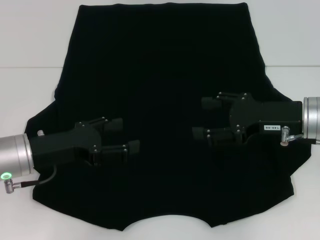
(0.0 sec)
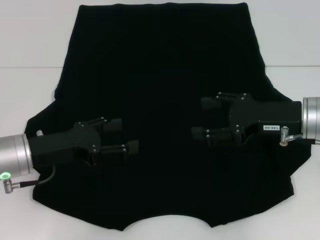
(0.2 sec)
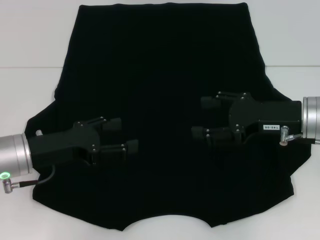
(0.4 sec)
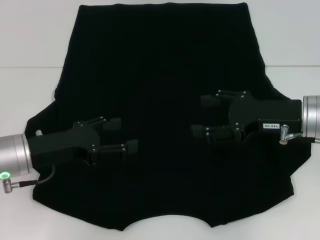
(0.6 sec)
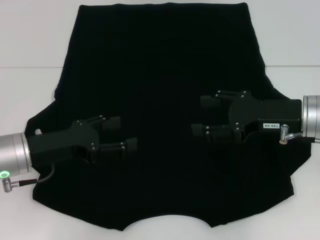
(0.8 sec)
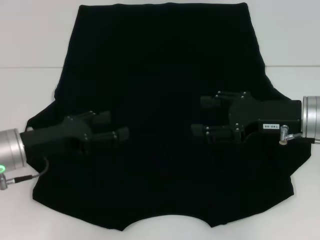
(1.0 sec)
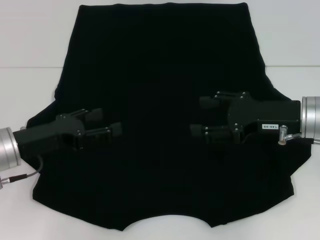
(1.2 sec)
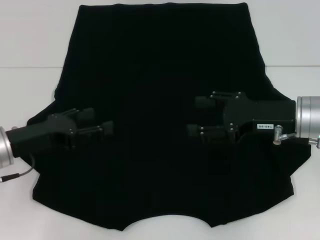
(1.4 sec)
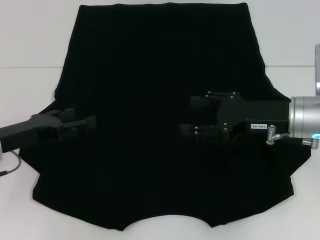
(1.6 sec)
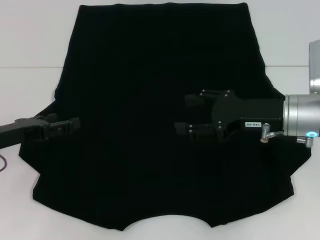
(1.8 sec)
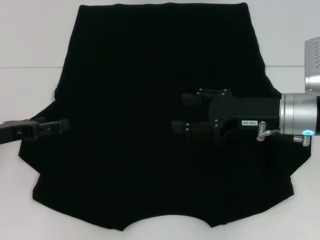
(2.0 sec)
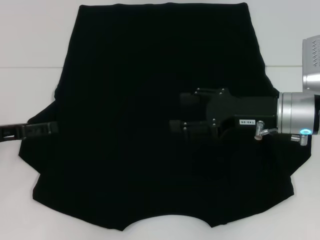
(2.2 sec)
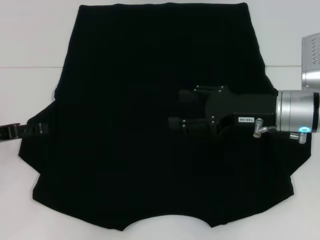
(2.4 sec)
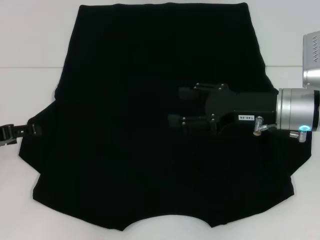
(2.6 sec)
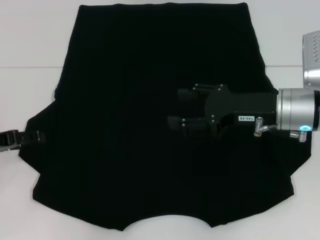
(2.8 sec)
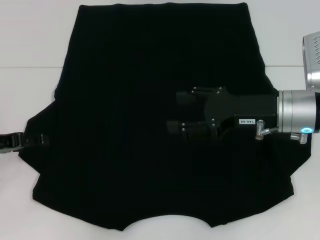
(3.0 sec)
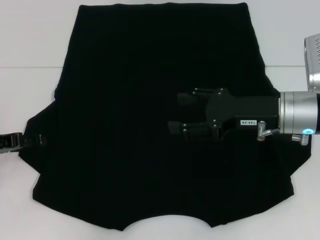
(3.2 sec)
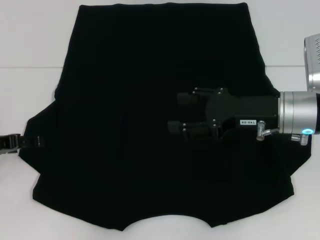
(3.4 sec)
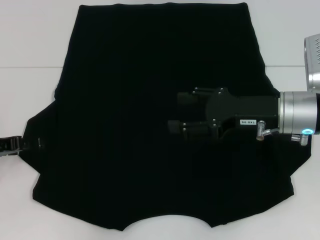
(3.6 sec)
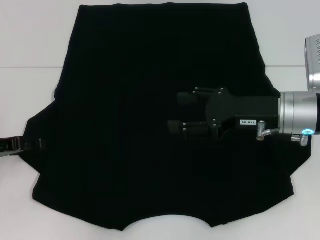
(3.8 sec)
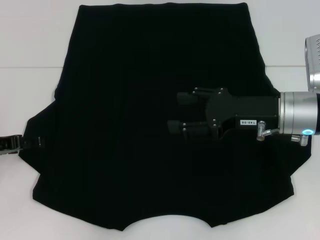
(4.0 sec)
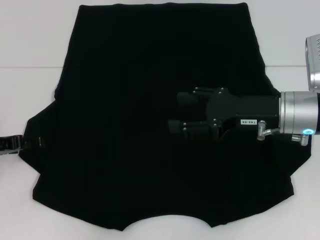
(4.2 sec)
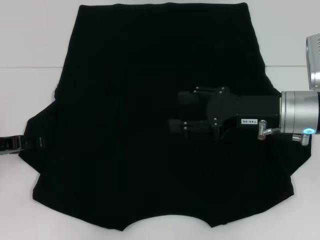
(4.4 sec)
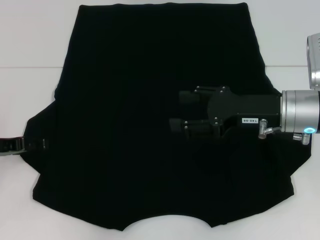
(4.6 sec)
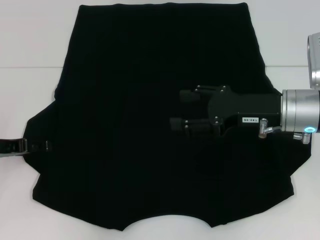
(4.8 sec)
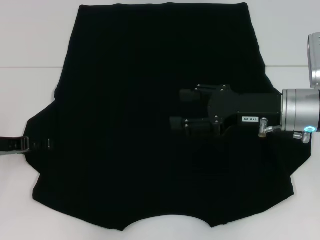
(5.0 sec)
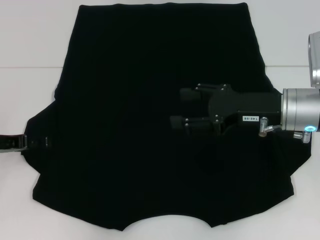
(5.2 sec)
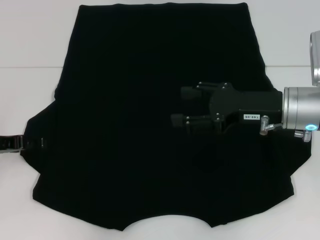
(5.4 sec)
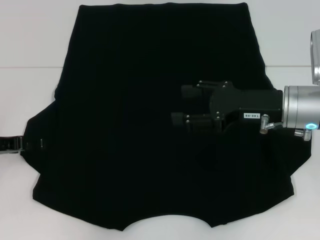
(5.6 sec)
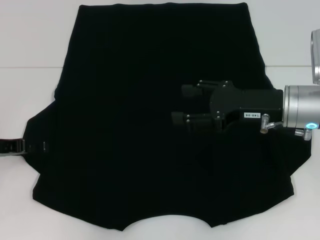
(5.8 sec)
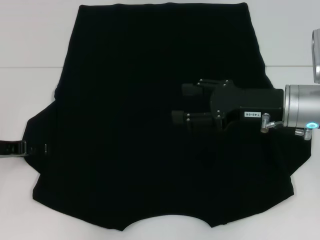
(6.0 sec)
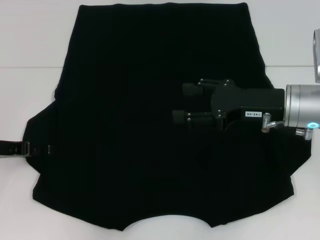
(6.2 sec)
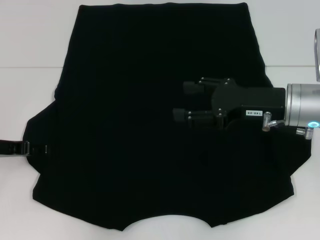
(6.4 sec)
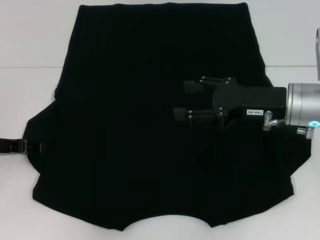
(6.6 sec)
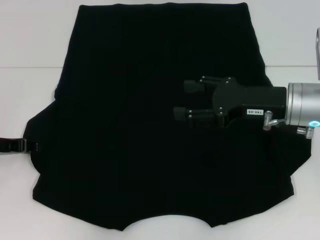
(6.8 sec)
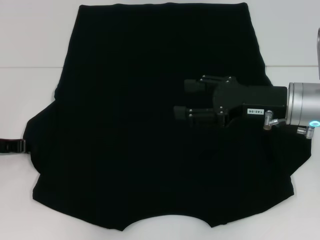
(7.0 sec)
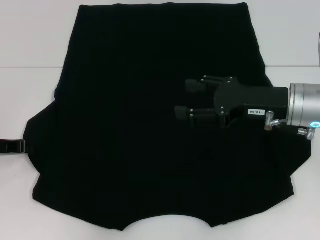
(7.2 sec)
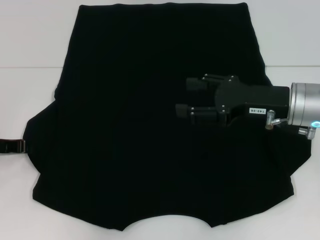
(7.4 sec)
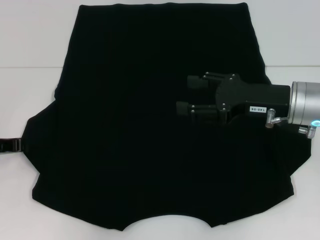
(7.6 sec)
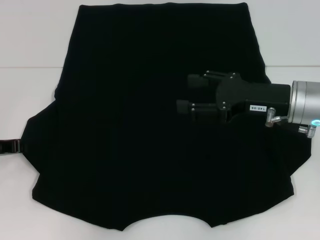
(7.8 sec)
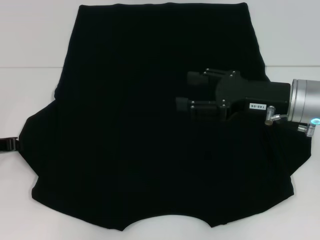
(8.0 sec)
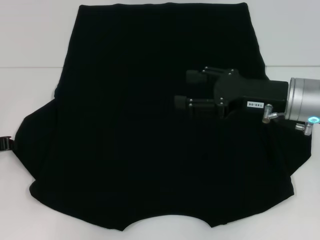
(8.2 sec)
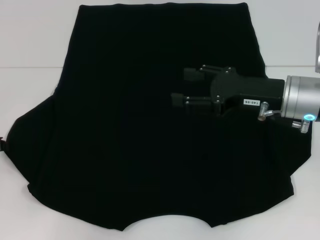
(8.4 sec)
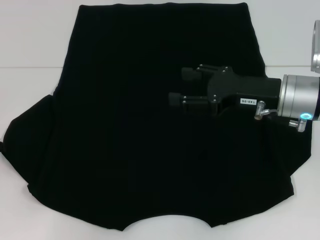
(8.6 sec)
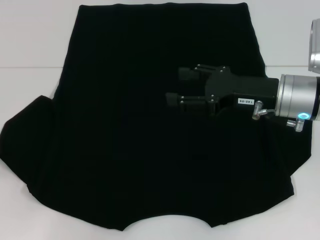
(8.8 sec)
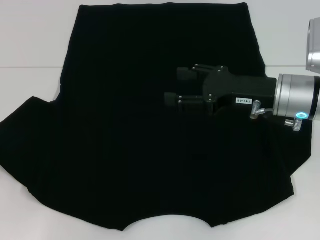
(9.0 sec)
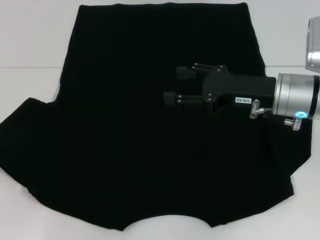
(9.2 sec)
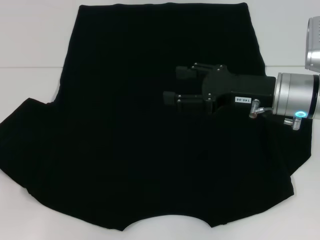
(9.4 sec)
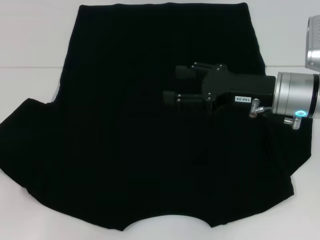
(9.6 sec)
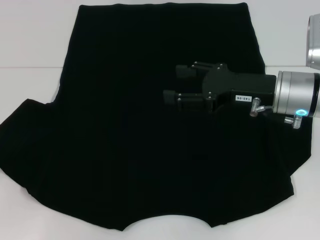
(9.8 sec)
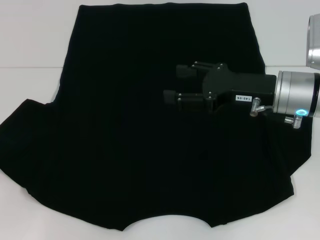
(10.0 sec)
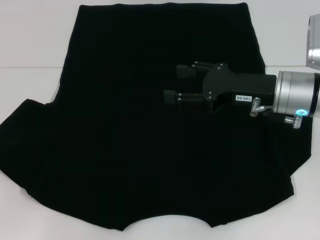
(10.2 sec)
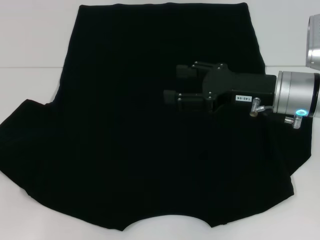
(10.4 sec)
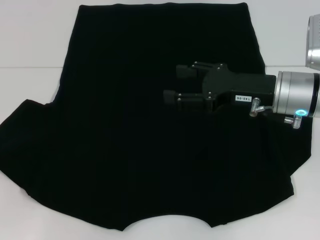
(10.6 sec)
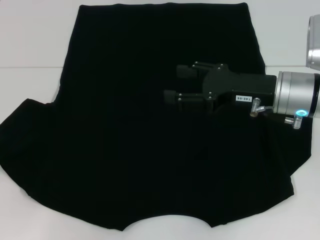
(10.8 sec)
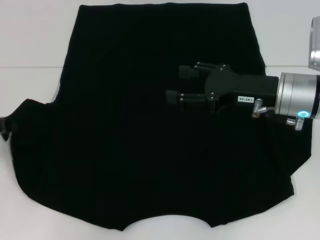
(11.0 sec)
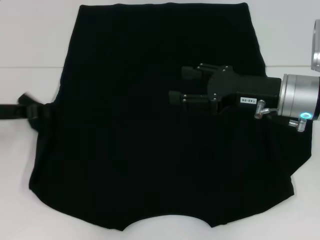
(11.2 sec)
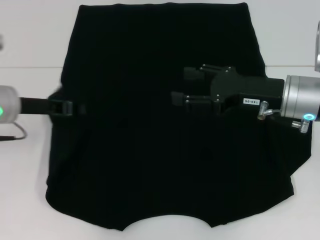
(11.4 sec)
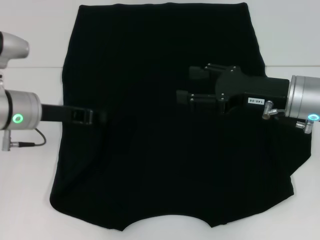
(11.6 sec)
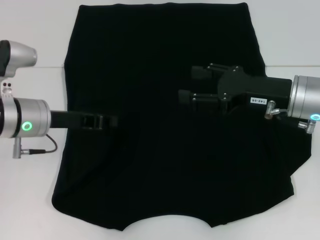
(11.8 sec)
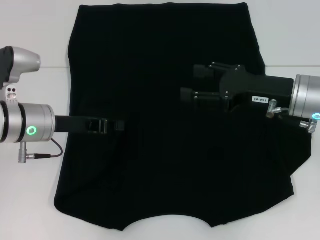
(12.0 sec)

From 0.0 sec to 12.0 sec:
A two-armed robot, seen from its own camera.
From 3.0 sec to 6.0 sec: The grippers make only small movements.
From 6.0 sec to 7.6 sec: The left gripper closes its fingers.
From 7.6 sec to 9.0 sec: The left gripper shifts by some 5 cm.
From 9.0 sec to 10.4 sec: There are only small adjustments of the grippers.
From 10.4 sec to 12.0 sec: The left gripper moves to the right and forward, roughly 20 cm.

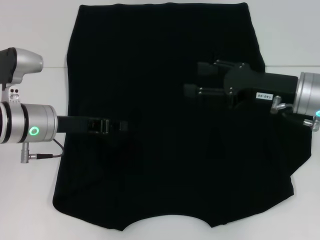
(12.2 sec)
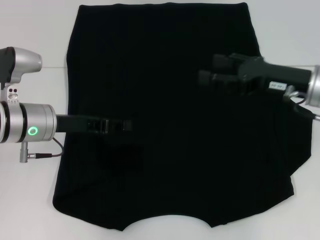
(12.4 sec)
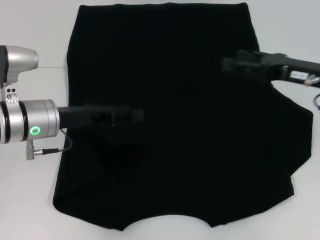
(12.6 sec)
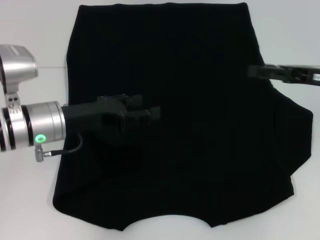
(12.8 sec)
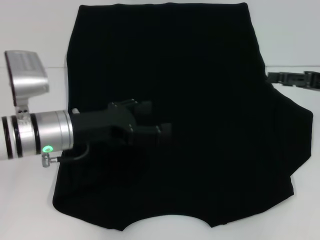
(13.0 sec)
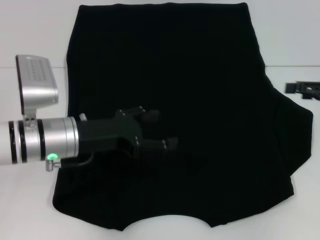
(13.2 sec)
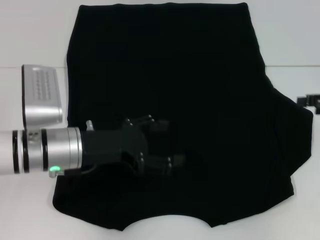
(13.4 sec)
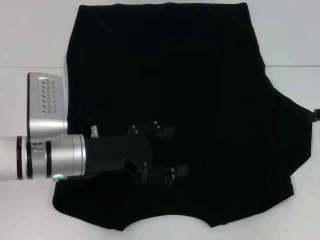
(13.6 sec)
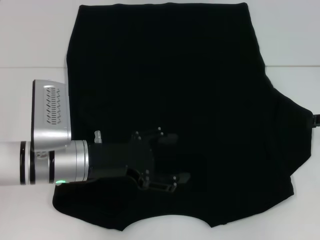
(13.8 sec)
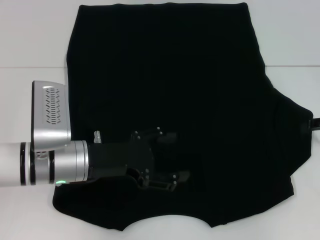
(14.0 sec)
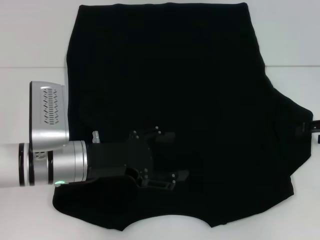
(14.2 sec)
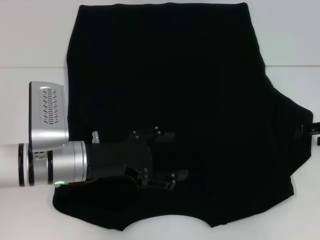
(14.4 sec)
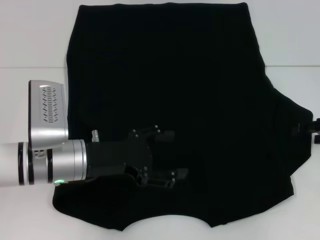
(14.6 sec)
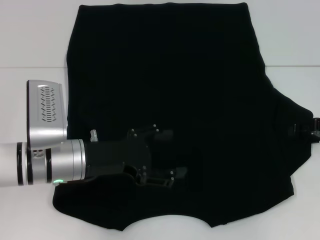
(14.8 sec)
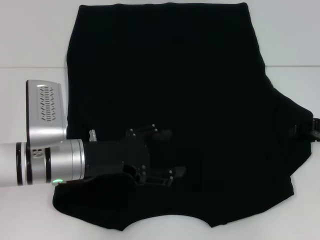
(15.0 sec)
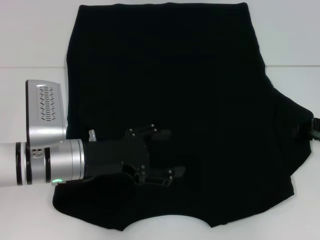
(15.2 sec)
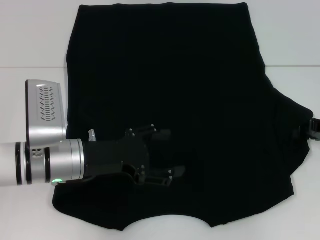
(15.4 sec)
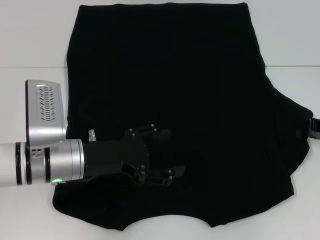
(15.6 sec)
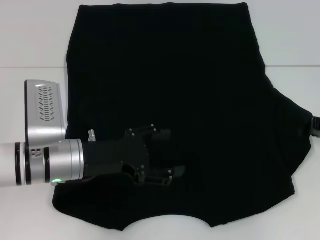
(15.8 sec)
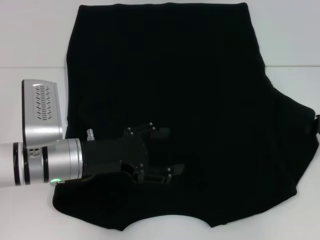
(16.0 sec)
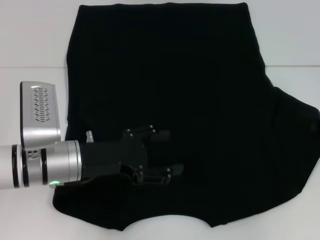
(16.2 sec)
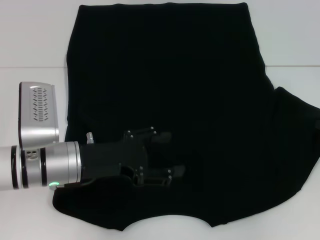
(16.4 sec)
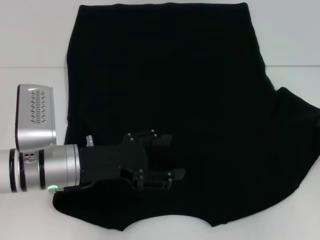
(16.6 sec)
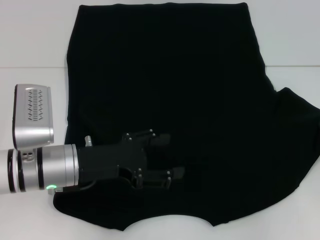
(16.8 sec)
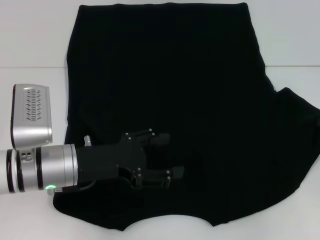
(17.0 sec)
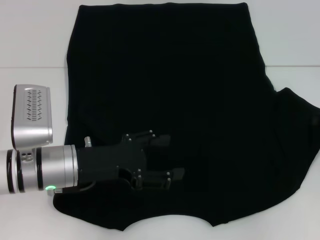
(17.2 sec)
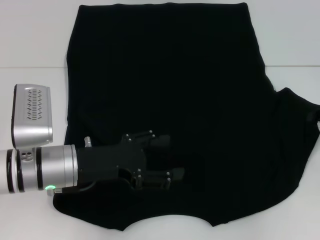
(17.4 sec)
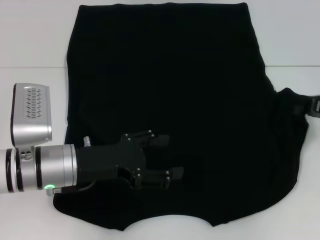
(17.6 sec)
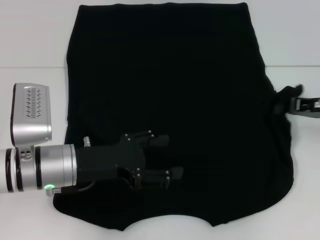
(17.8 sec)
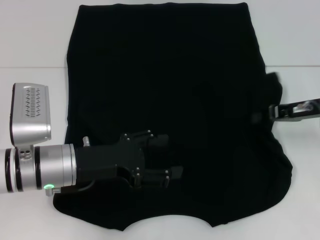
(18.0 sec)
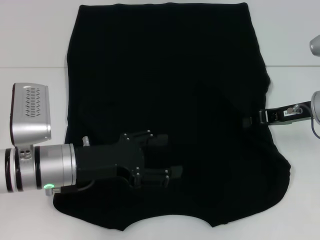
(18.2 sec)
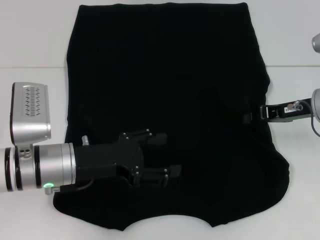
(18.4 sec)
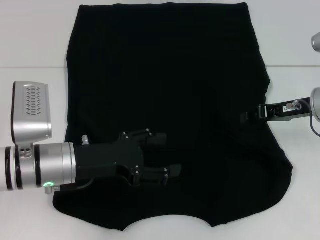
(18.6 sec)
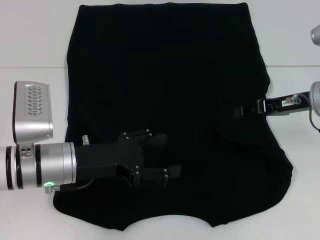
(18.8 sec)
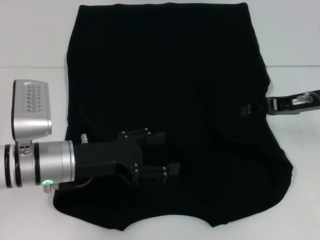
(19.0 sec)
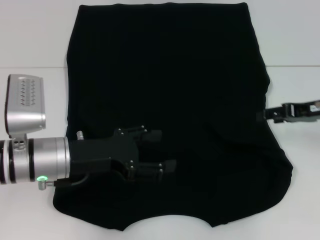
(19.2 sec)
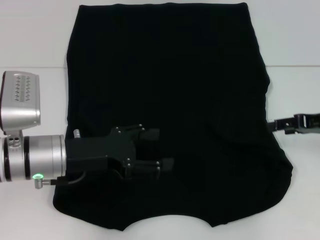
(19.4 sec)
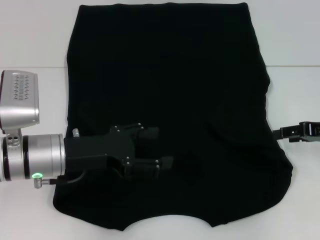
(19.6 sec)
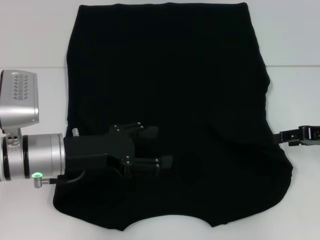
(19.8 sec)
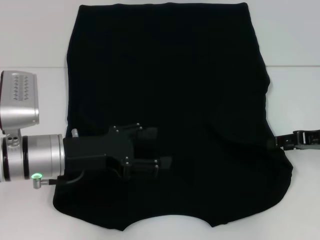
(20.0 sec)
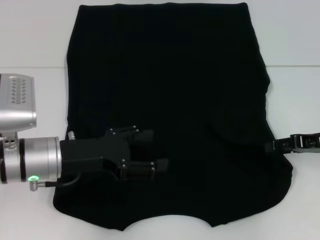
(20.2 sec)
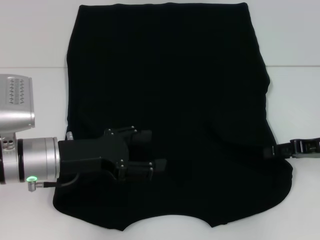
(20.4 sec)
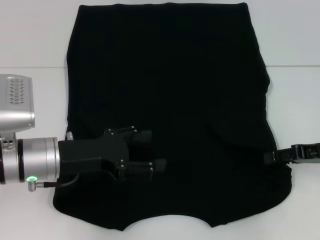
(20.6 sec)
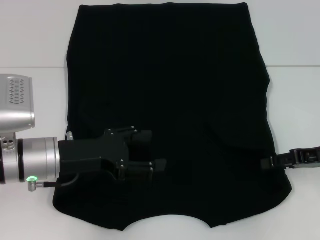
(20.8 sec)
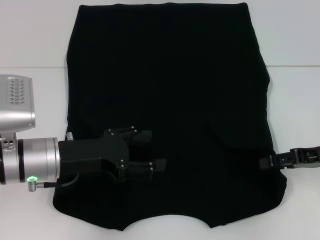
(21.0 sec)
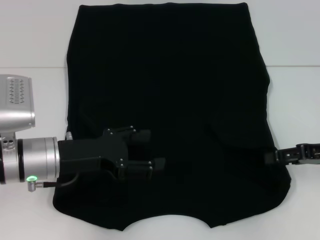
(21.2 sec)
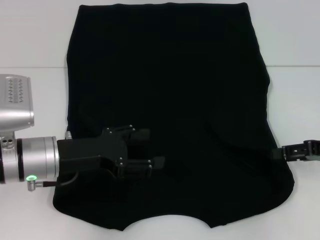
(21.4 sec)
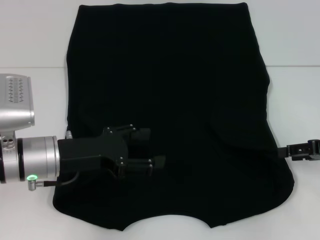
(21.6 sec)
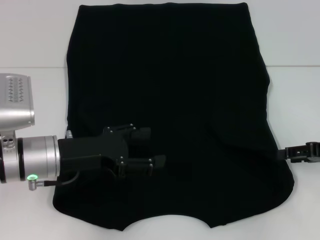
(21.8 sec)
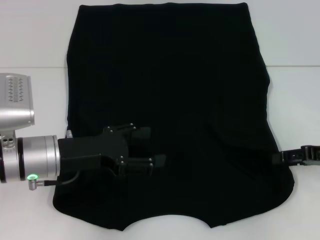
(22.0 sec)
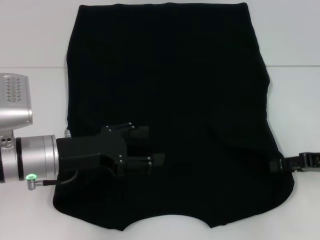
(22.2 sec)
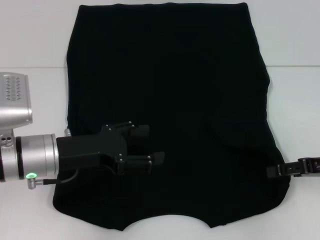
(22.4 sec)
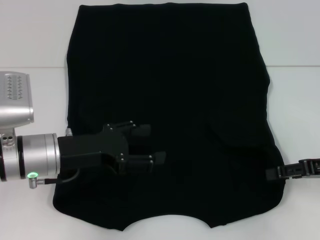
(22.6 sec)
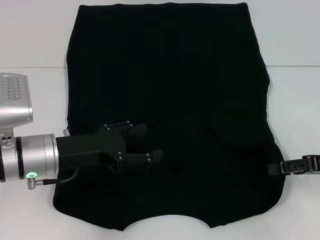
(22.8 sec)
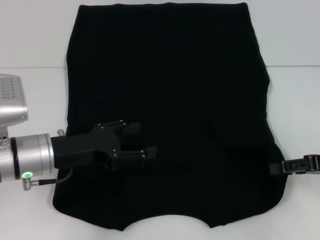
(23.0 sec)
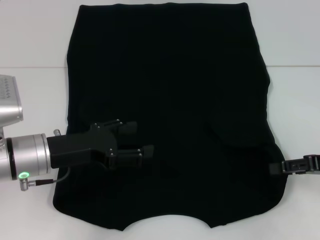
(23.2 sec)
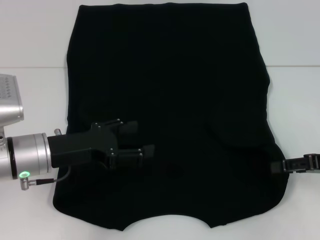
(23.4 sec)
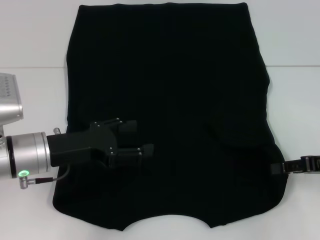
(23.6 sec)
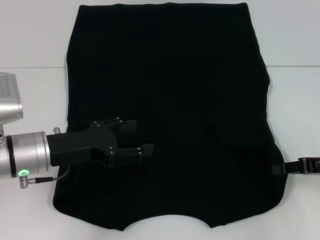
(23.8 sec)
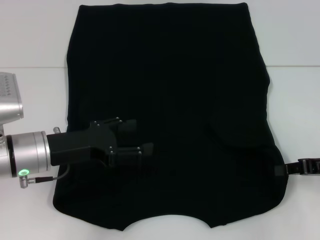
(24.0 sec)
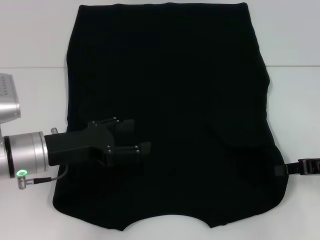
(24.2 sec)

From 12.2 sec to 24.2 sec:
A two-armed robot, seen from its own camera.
Step, from 12.4 sec to 18.8 sec: Fold the bottom right sleeve with your right hand.
From 12.2 sec to 13.8 sec: The left gripper moves backward and to the right, about 5 cm, and opens its fingers; the right gripper heads to the right, covering roughly 15 cm.
From 13.8 sec to 15.2 sec: There are only small adjustments of the grippers.
From 15.2 sec to 16.6 sec: The right gripper closes up.
From 16.6 sec to 18.2 sec: The right gripper goes about 10 cm to the left.
From 18.2 sec to 19.8 sec: The right gripper goes approximately 5 cm to the right, and opens.
From 19.8 sec to 22.6 sec: The grippers stay close to where they were, moving slightly.
From 22.6 sec to 24.2 sec: The right gripper closes.
